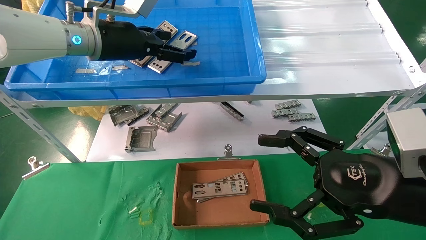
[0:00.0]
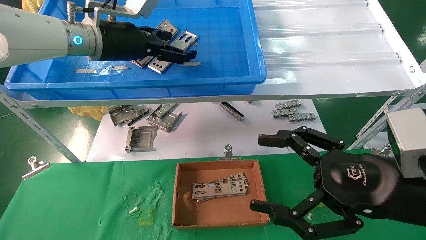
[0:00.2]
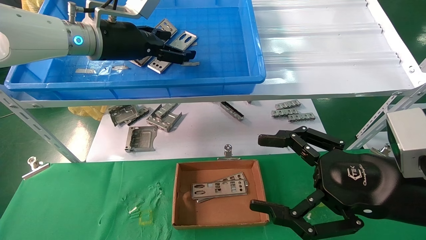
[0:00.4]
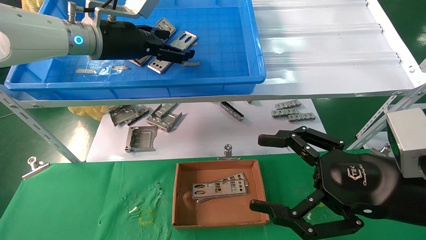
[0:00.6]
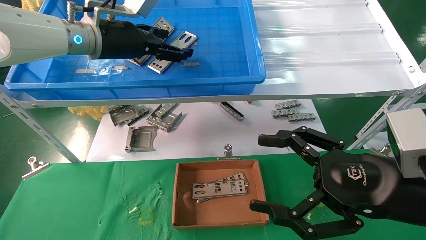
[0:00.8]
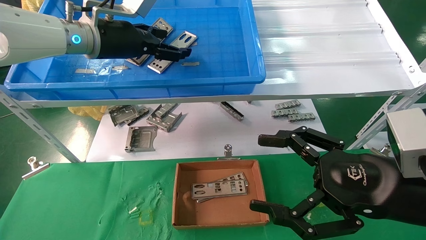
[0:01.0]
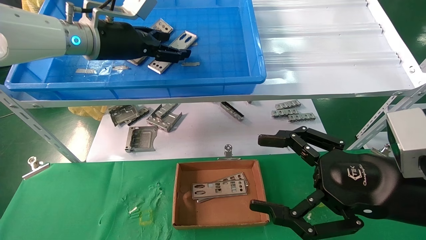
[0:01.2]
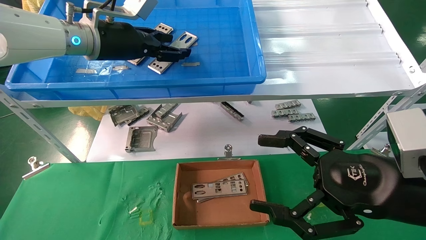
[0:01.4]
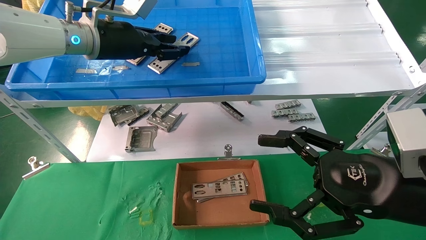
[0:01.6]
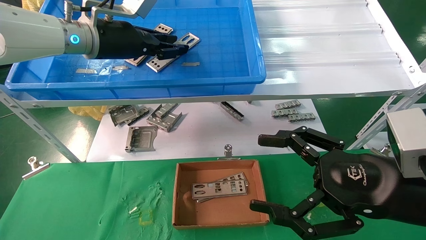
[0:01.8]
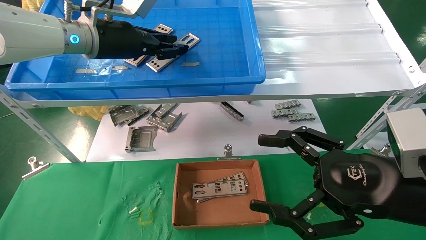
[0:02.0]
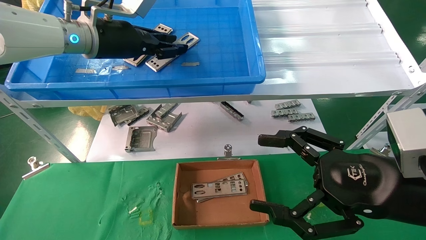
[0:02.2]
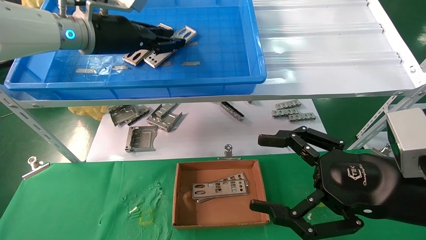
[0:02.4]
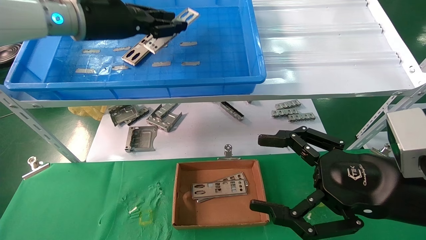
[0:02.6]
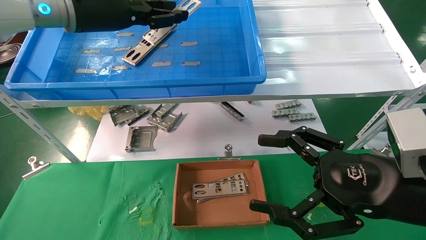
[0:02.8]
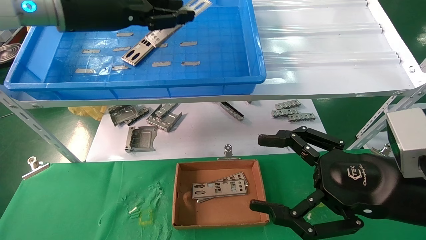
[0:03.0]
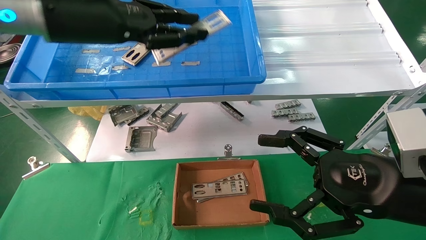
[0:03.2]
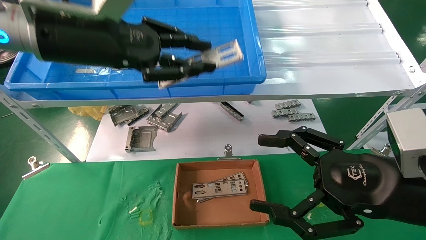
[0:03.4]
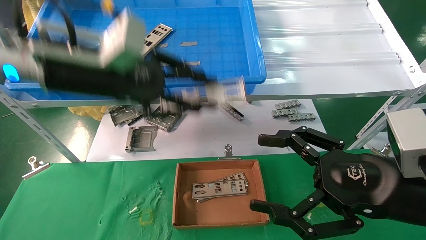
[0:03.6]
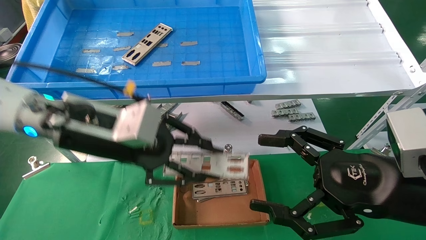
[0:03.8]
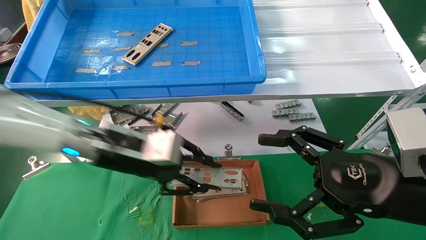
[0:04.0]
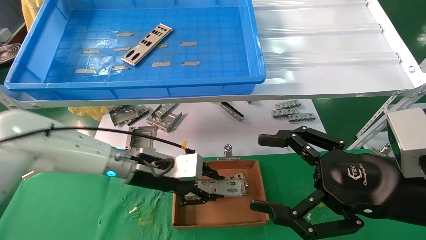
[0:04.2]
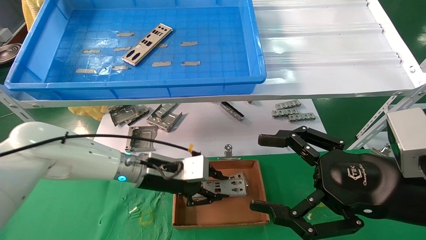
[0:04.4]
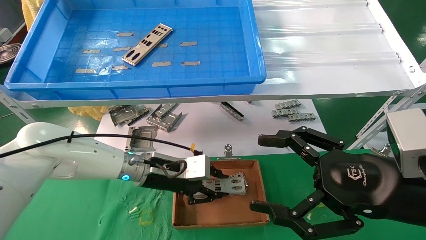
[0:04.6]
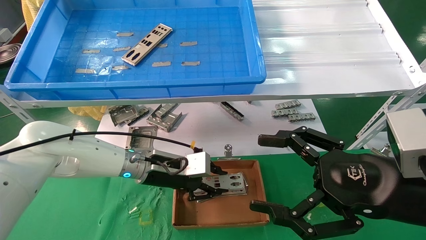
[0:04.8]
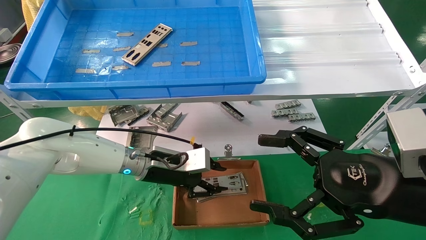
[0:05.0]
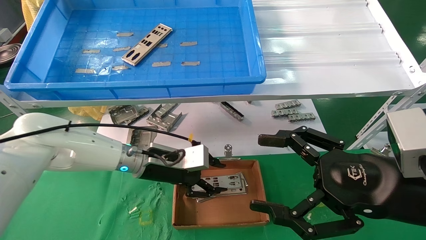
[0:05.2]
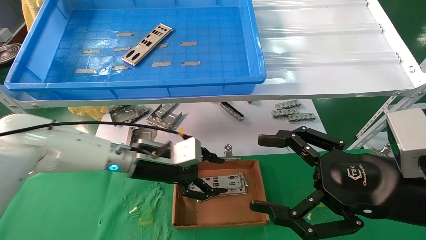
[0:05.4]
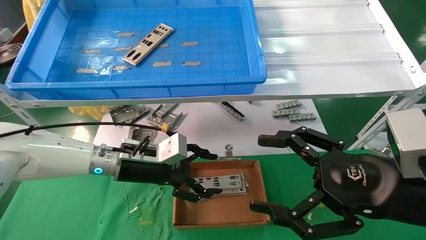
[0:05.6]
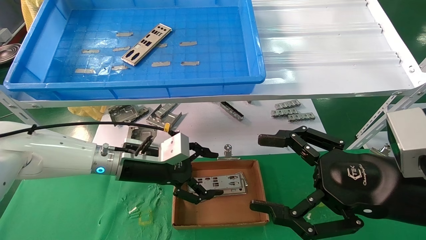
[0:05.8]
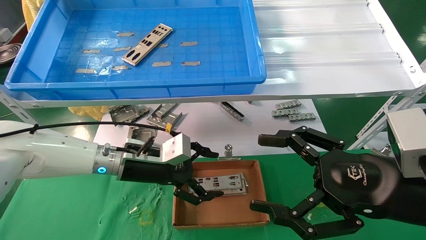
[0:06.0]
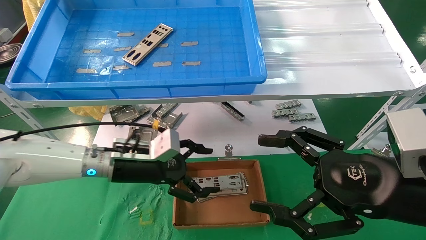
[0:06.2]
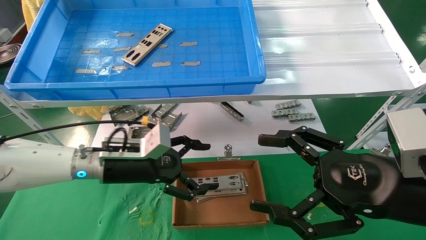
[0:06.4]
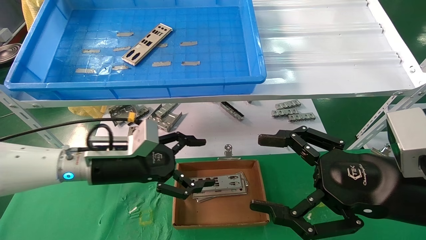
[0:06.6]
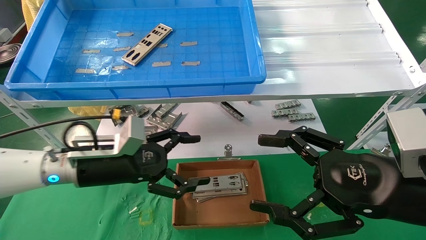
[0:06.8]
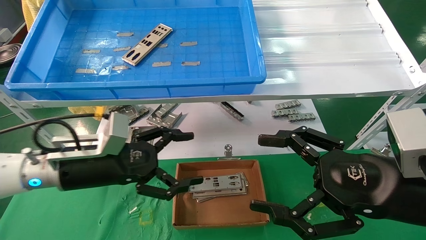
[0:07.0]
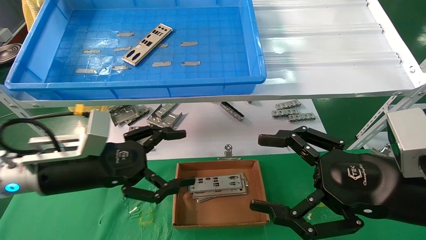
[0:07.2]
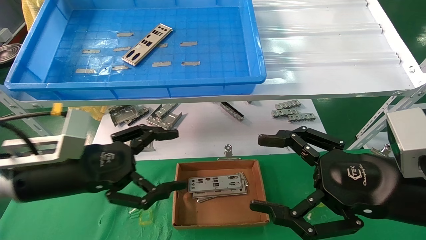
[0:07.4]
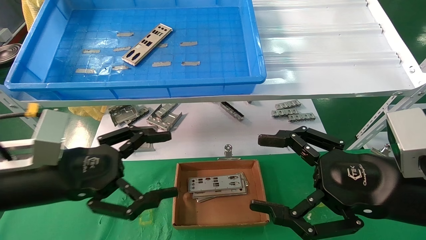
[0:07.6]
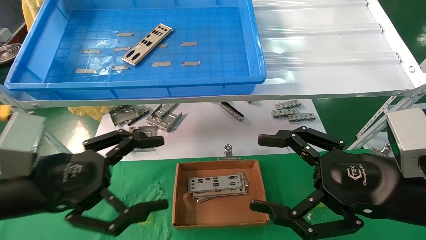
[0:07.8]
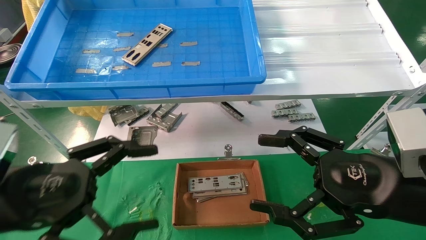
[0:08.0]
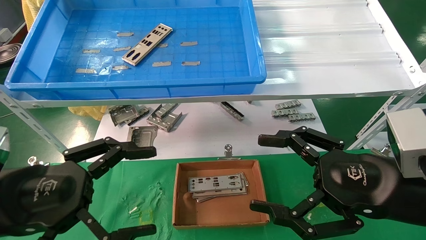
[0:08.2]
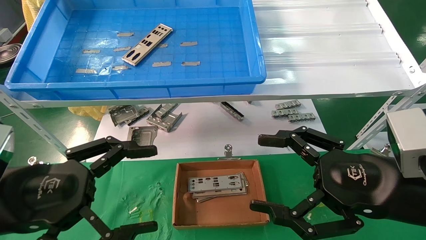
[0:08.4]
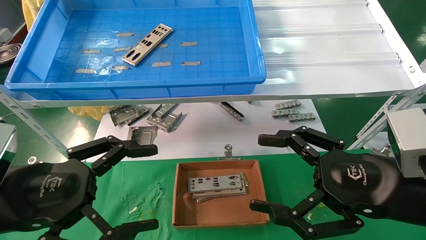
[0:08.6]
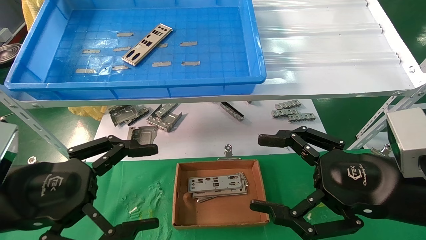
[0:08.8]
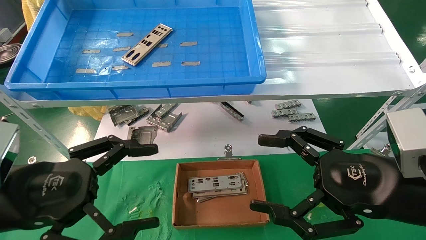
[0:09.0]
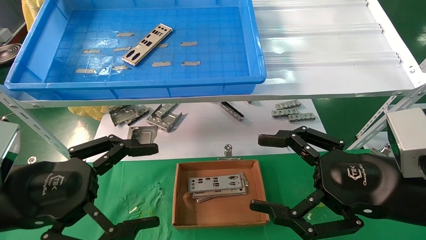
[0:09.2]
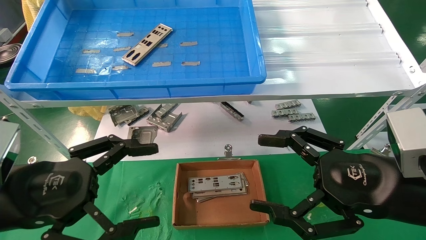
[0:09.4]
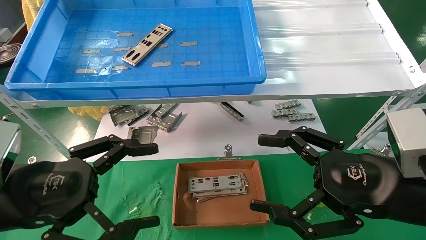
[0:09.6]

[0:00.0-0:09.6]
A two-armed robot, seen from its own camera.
Task of the whole recording: pick up the parts on the tray and put them in the cardboard box.
Step, 0:02.0 to 0:05.0: Place the IO bracket into the ingredient slot.
0:00.0 to 0:01.6: The left gripper closes its fingers.
0:01.6 to 0:03.2: The left gripper travels backward by roughly 10 cm.
0:03.2 to 0:04.8: The left gripper travels downward by approximately 30 cm.
0:04.8 to 0:06.4: The left gripper heads to the left, covering about 5 cm, and opens its fingers.
0:06.4 to 0:08.0: The left gripper moves backward and to the left, some 20 cm.
0:08.0 to 0:09.6: Both grippers stay about where they are.
